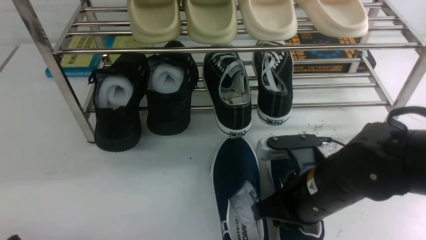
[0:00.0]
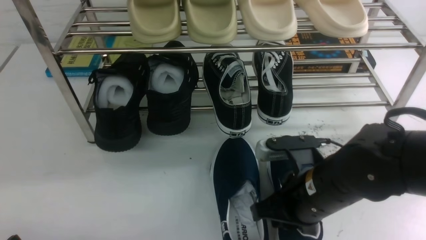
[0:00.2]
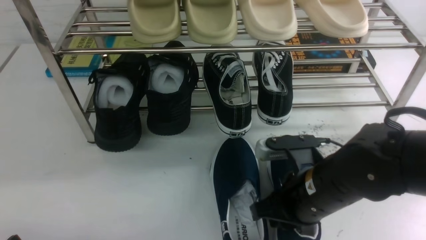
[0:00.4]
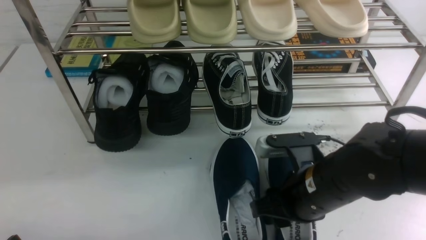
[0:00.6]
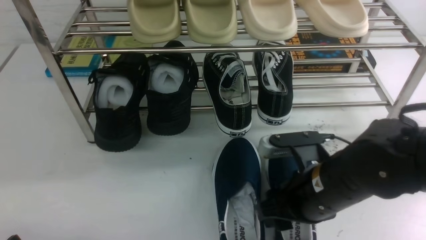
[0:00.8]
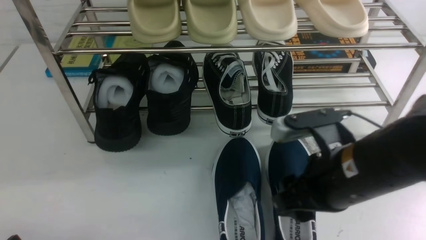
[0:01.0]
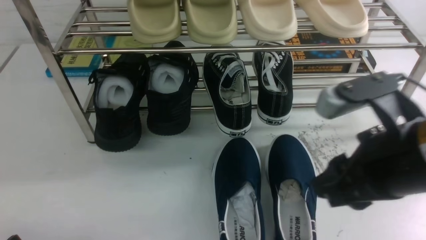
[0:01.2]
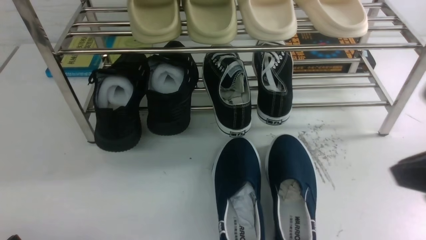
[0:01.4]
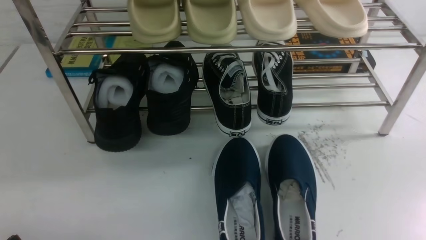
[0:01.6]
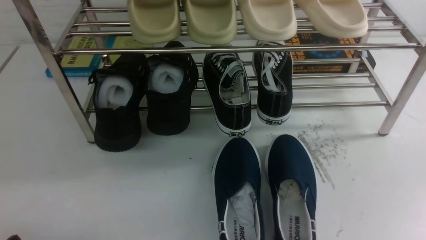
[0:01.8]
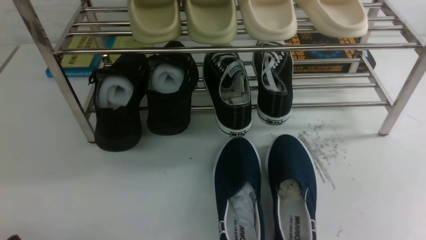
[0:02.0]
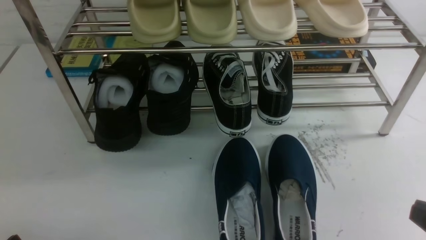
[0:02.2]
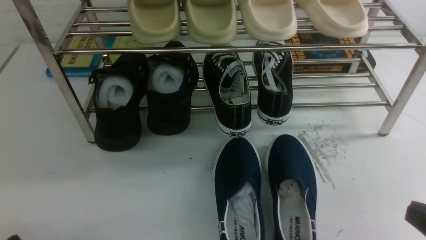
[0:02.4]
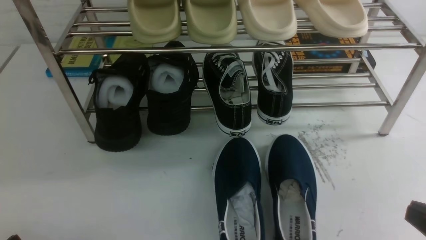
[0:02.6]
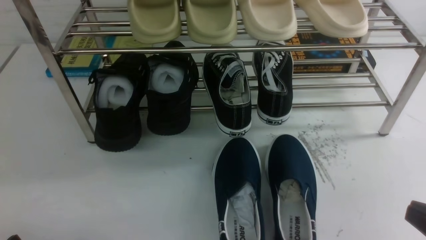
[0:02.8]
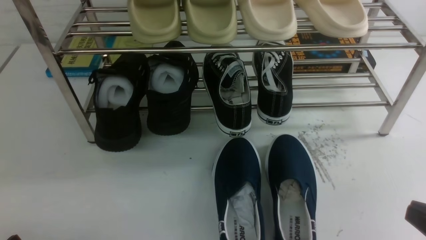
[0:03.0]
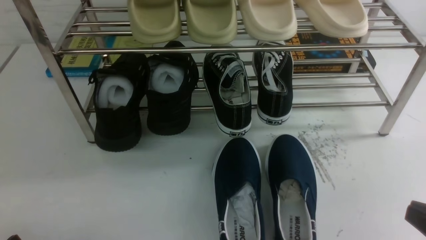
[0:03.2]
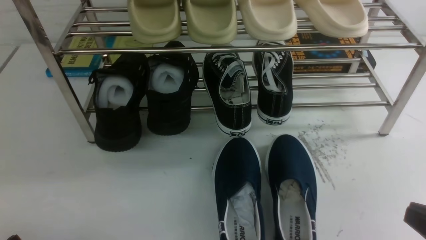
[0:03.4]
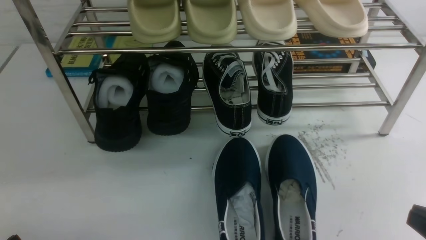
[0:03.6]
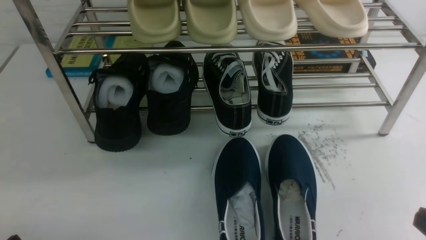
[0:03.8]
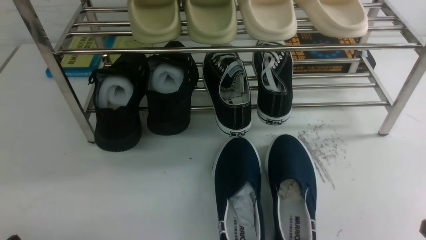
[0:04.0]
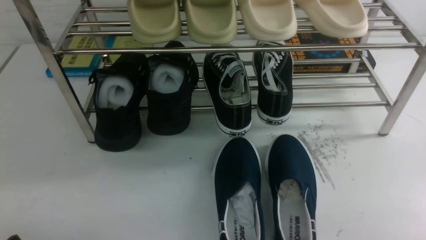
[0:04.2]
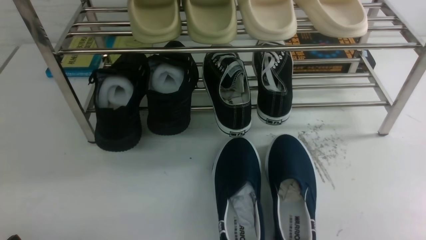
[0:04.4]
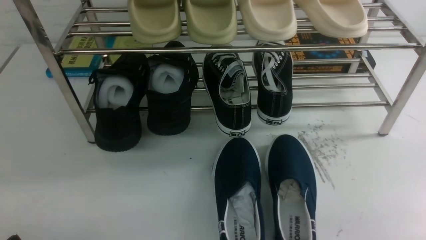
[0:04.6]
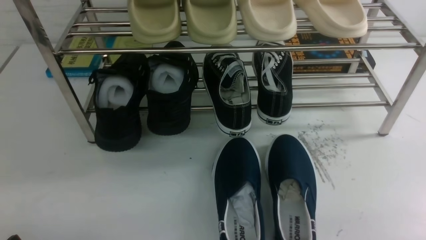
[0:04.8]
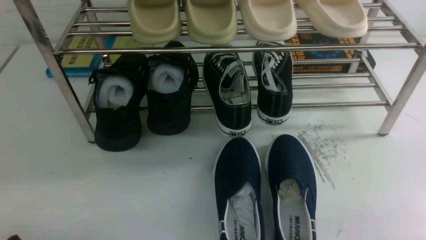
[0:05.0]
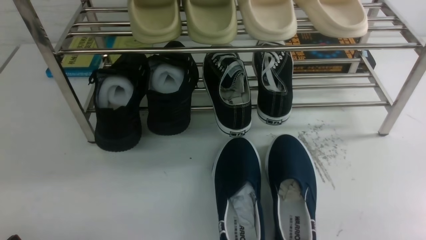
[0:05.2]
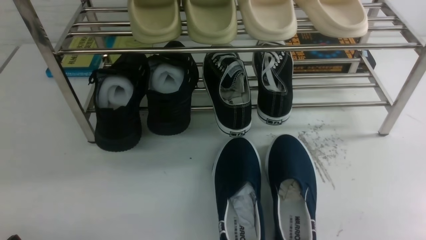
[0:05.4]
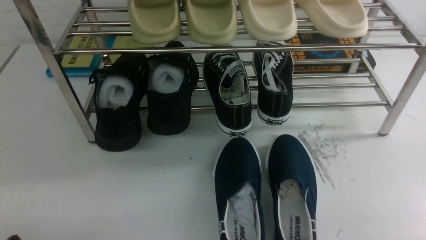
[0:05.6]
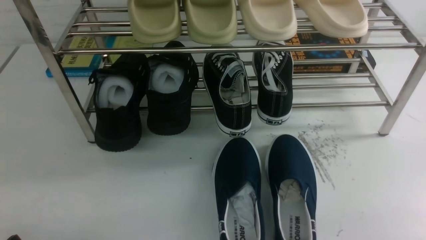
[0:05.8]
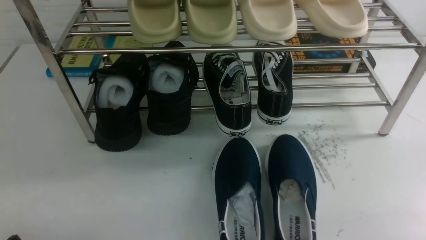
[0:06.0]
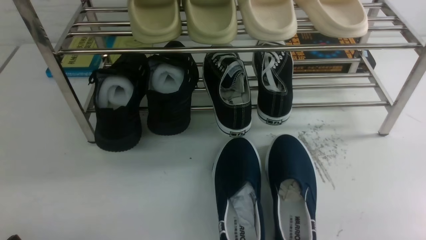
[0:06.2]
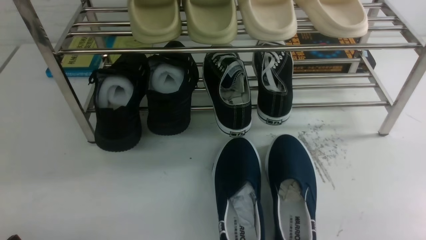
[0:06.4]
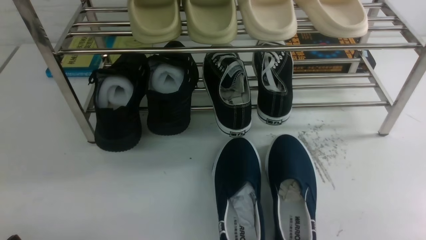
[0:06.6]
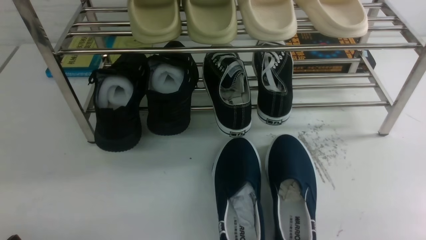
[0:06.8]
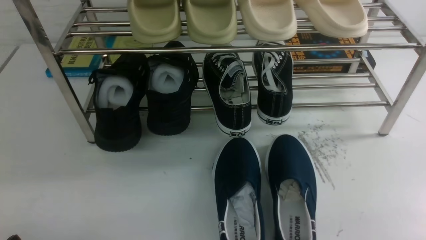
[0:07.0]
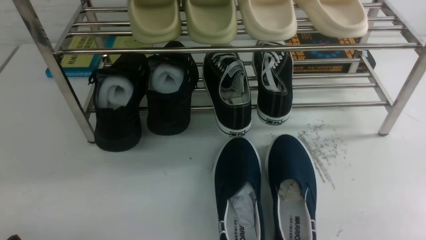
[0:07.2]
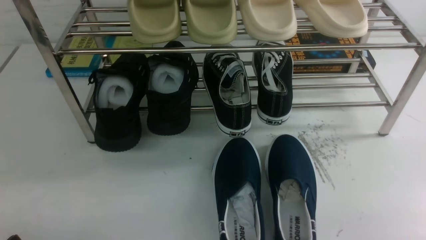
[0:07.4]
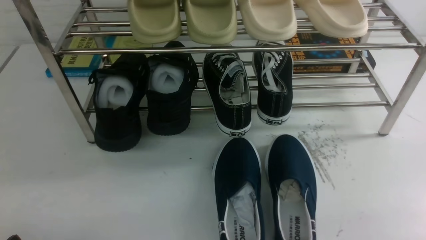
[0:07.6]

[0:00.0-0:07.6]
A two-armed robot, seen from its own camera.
0:00.0 to 0:01.6: The right gripper goes approximately 30 cm upward, to the right and backward, and opens, then closes once more.
0:01.6 to 0:03.0: The right gripper is displaced downward by some 10 cm.
0:06.0 to 0:07.6: Both grippers stay about where they are.
